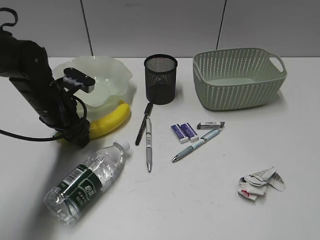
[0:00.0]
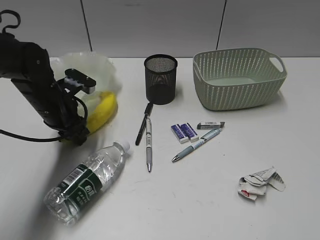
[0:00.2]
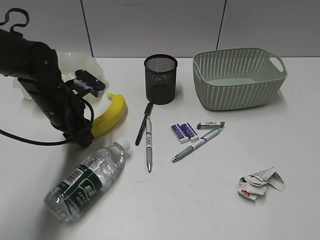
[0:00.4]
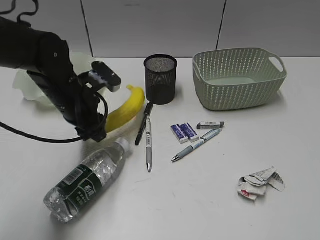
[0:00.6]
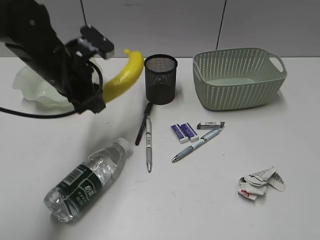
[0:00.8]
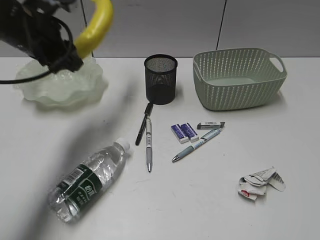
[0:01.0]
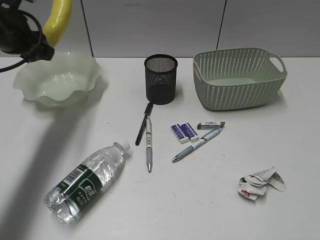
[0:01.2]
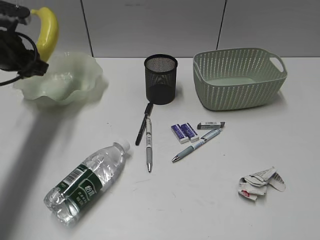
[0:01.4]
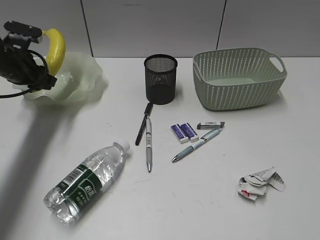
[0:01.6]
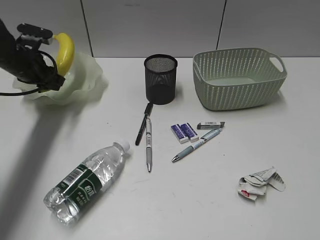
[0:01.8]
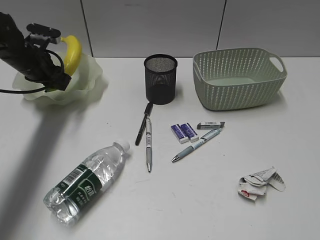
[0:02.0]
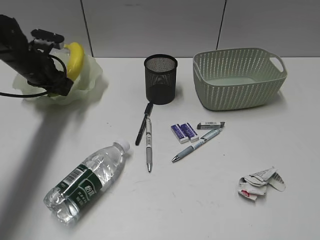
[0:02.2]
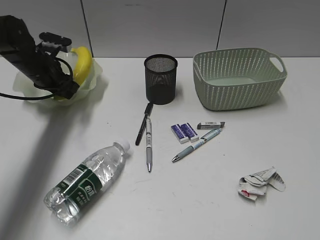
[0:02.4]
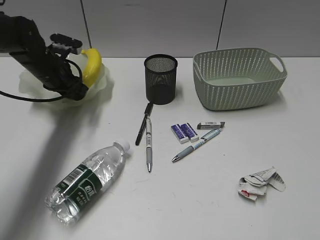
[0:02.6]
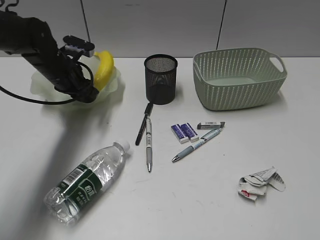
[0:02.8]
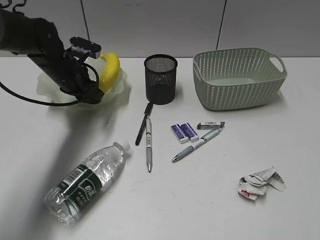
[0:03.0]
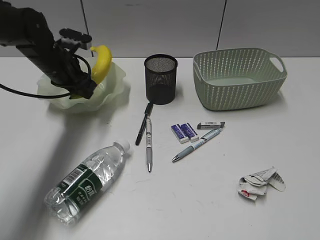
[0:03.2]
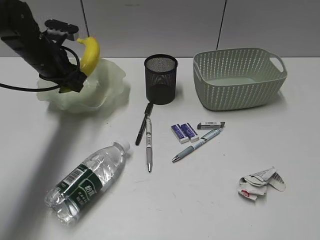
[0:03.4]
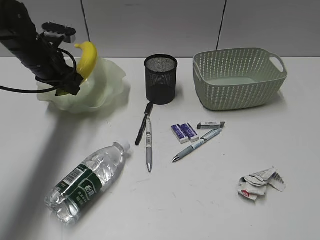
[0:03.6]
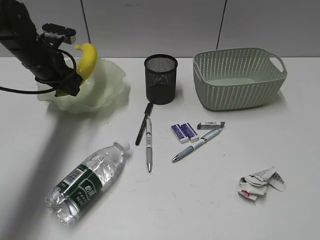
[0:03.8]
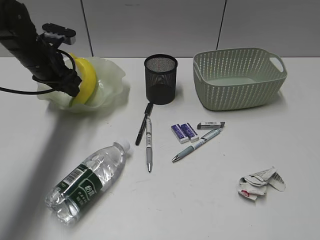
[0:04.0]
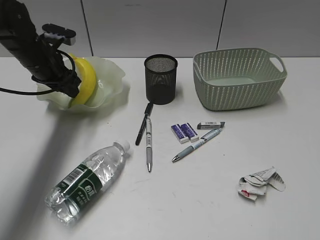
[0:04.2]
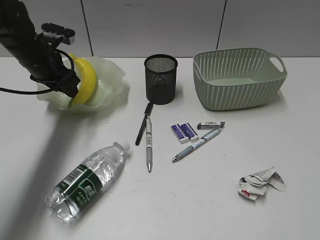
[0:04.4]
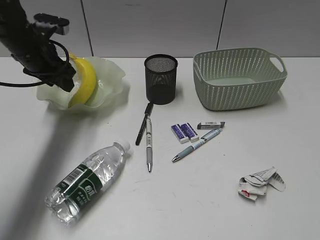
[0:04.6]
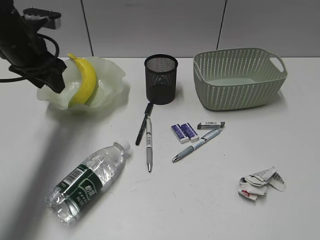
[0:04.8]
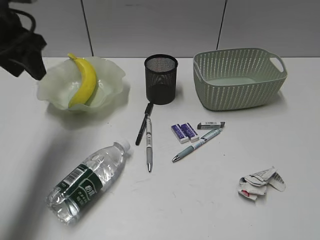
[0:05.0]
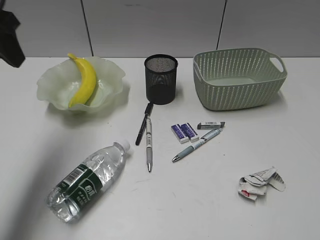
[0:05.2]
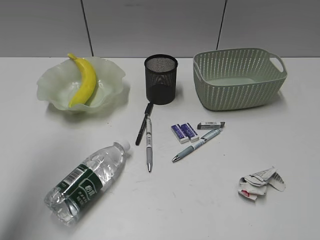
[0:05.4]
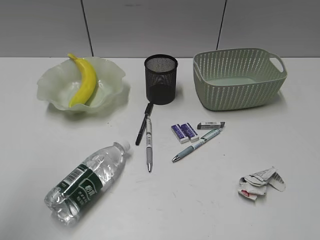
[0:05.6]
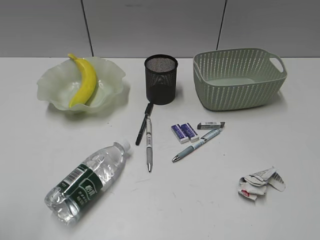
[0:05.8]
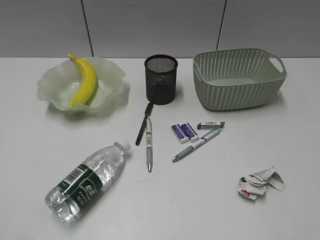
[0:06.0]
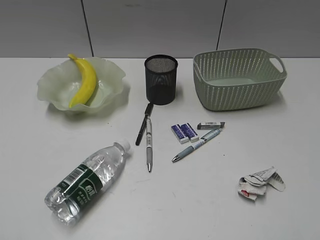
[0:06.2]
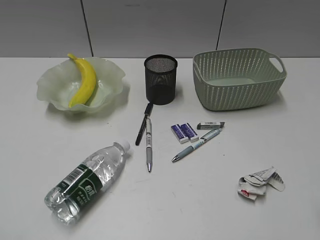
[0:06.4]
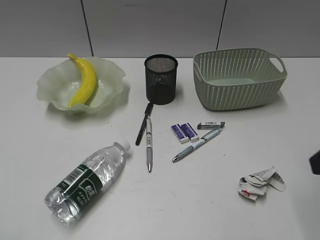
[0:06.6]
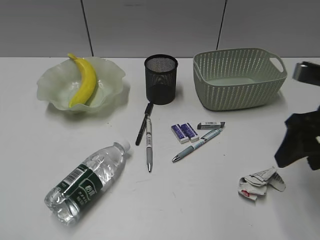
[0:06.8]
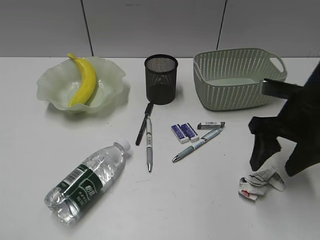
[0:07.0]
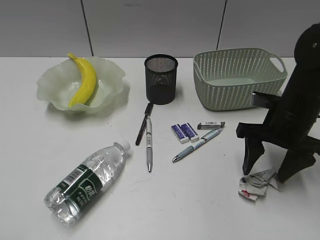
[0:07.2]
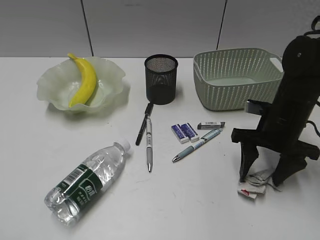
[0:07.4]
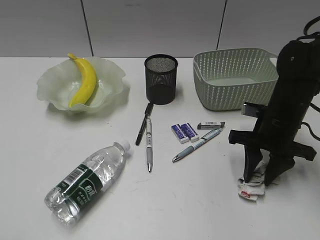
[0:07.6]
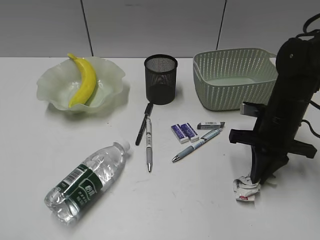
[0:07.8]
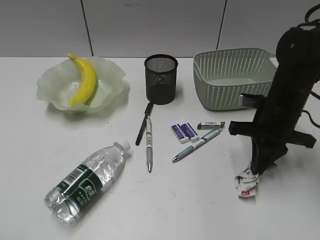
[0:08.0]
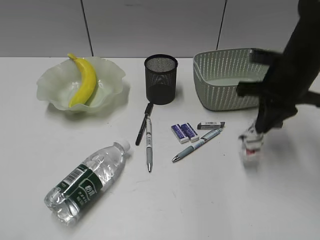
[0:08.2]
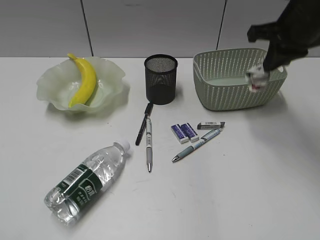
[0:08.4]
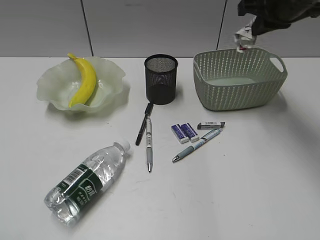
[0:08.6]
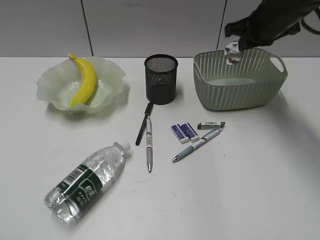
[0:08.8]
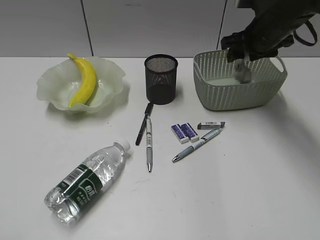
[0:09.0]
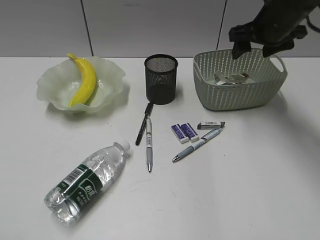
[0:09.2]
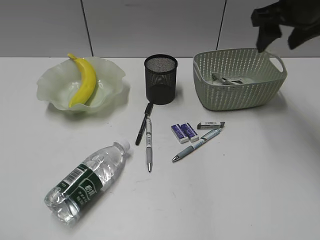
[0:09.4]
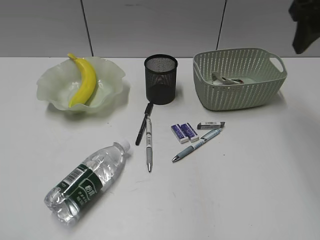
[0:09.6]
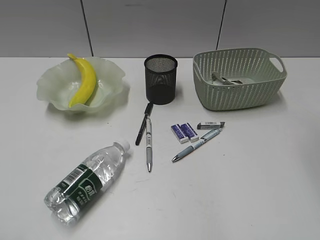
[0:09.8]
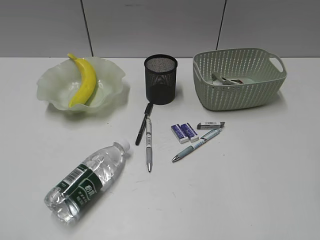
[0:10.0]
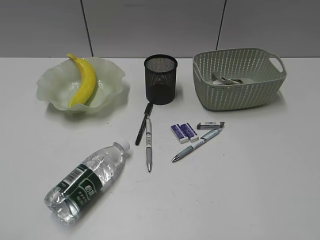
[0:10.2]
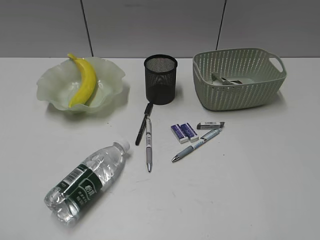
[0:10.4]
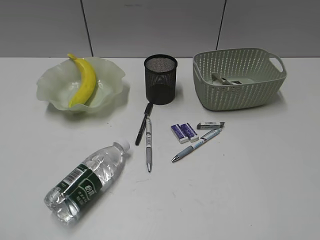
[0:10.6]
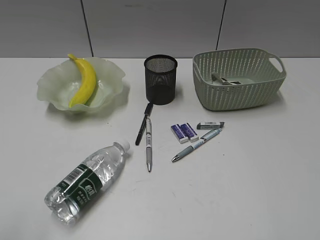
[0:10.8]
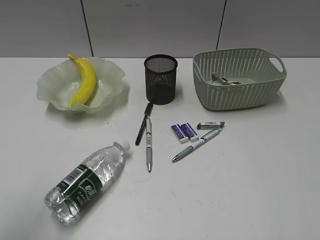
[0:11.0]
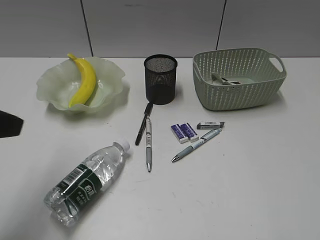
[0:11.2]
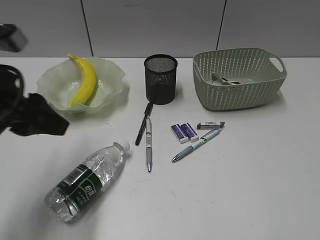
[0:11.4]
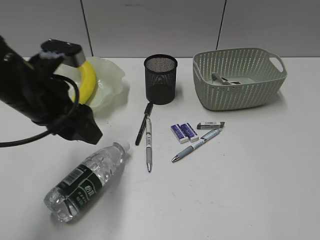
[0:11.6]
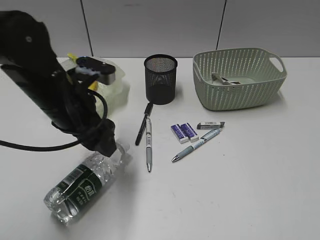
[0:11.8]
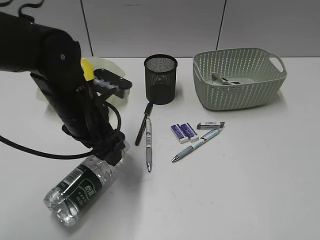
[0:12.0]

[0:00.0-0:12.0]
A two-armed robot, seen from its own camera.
Step, 0.4 to 4.0 s: Place the banana in the plate with left gripper.
Step, 4.2 to 7.8 s: Grasp the waste paper with right gripper.
Step, 8.0 to 9.0 s: Place the waste paper in the basket with right gripper.
0.0 to 1.6 s: The left gripper heads to the left and forward, covering some 10 cm, reaches roughly 15 cm upward, then returns, and closes.
1.6 to 3.0 s: The left gripper heads to the right, covering approximately 10 cm.
3.0 to 4.4 s: The left gripper moves roughly 5 cm.
4.4 to 6.0 s: The left gripper travels backward by about 40 cm.
6.0 to 7.6 s: The right gripper moves forward and downward, some 35 cm.
7.6 to 9.0 s: The right gripper shifts about 15 cm forward and upward, and closes, then opens again.
9.0 to 10.4 s: The right gripper goes approximately 40 cm backward.
10.4 to 12.0 s: The left gripper heads forward and to the right, covering some 35 cm, and opens.

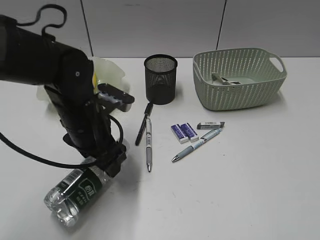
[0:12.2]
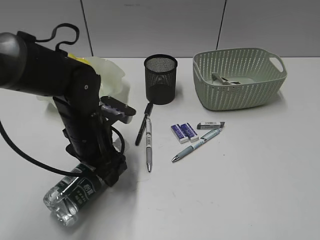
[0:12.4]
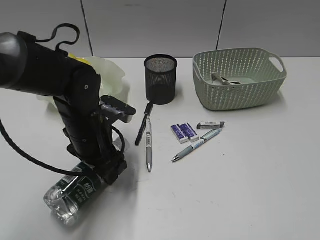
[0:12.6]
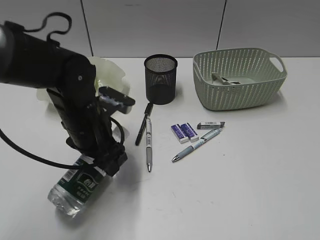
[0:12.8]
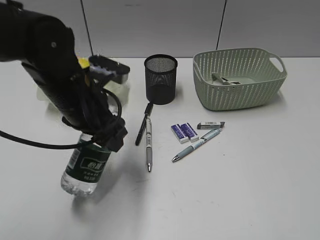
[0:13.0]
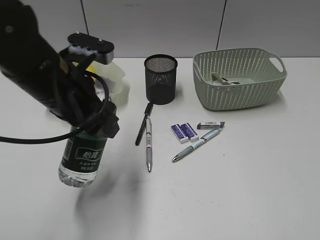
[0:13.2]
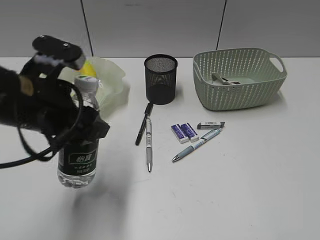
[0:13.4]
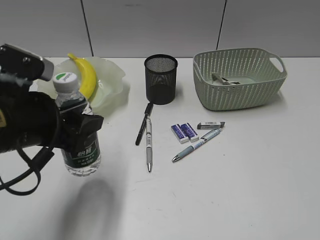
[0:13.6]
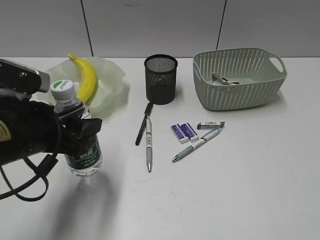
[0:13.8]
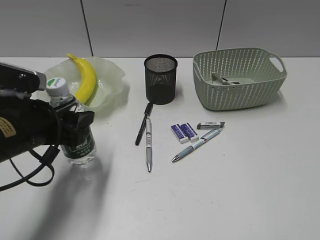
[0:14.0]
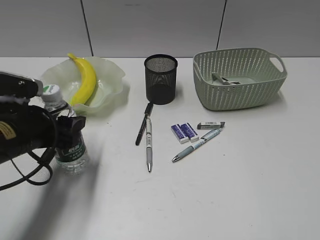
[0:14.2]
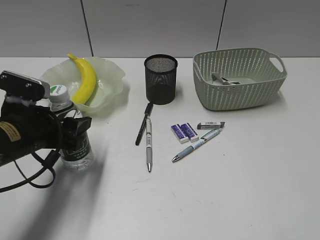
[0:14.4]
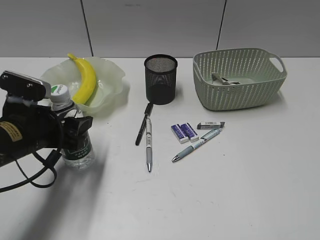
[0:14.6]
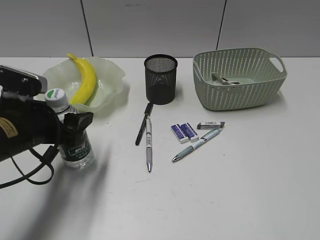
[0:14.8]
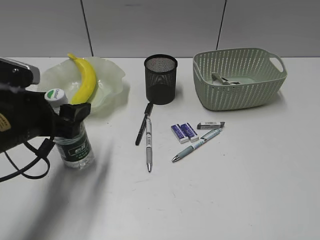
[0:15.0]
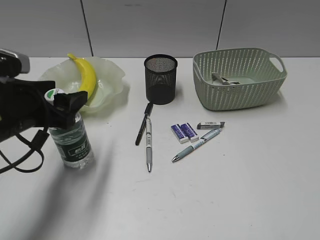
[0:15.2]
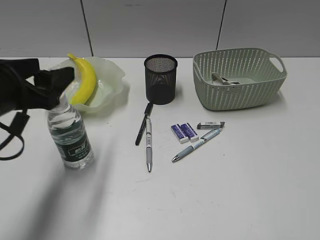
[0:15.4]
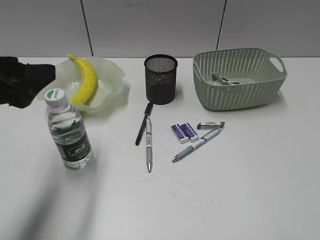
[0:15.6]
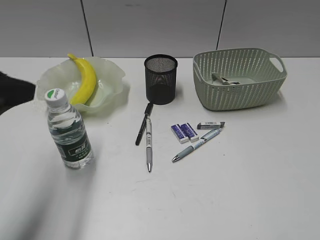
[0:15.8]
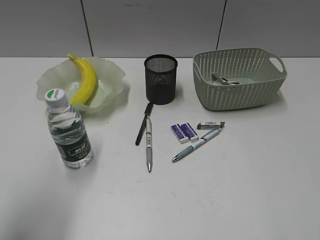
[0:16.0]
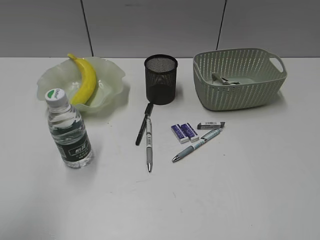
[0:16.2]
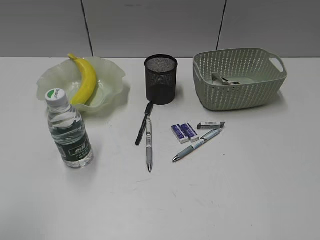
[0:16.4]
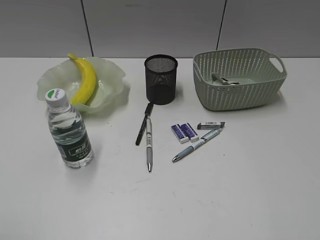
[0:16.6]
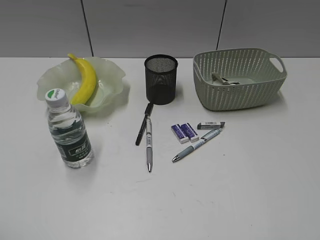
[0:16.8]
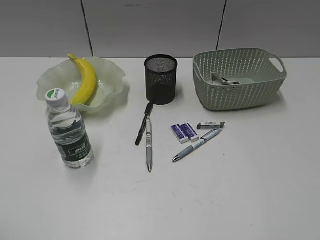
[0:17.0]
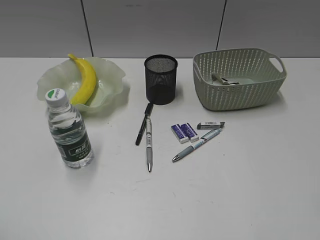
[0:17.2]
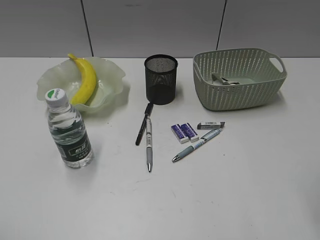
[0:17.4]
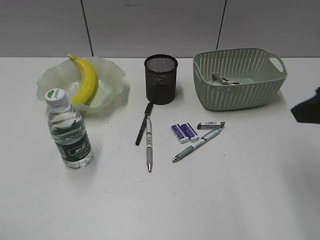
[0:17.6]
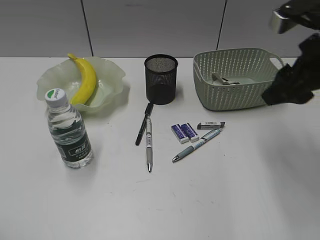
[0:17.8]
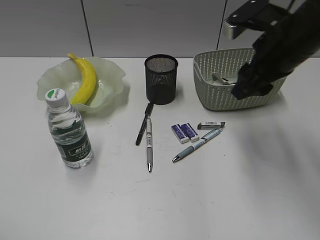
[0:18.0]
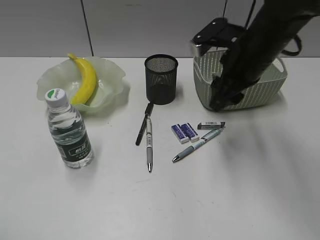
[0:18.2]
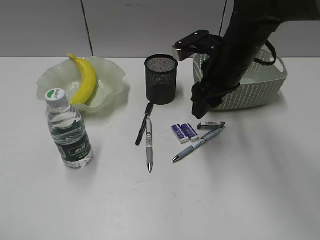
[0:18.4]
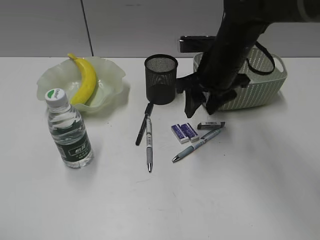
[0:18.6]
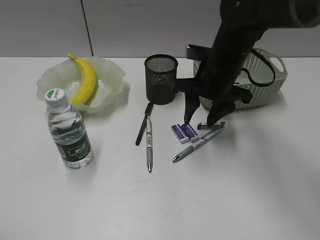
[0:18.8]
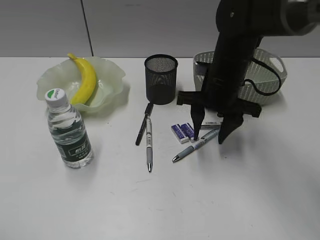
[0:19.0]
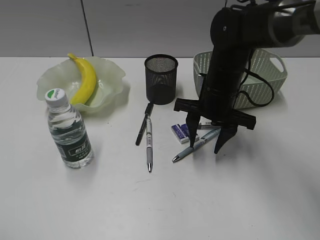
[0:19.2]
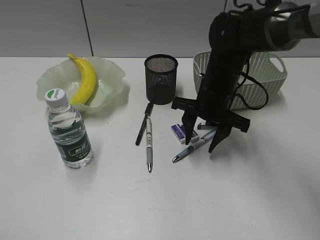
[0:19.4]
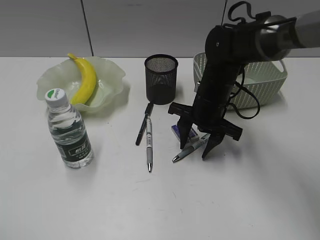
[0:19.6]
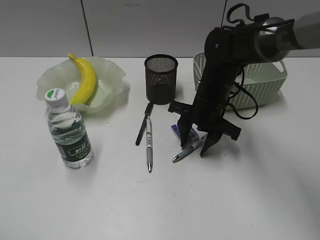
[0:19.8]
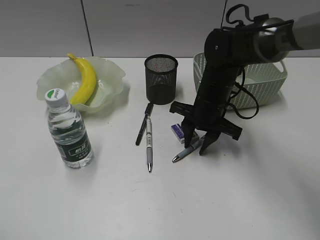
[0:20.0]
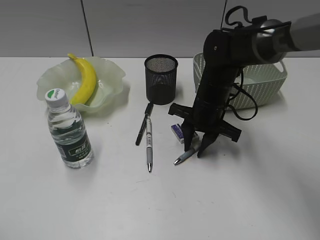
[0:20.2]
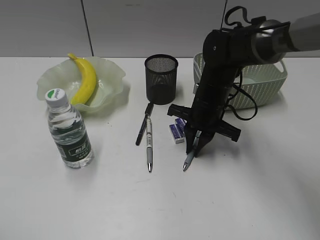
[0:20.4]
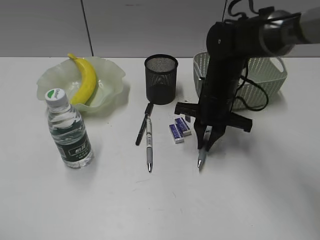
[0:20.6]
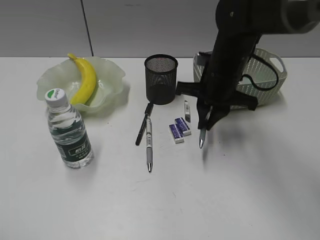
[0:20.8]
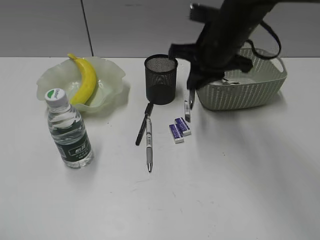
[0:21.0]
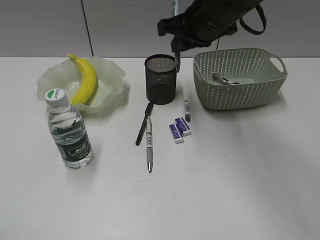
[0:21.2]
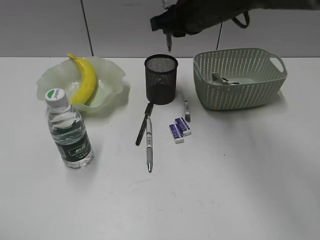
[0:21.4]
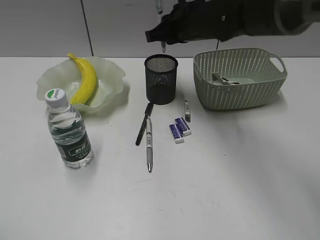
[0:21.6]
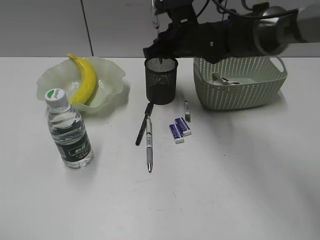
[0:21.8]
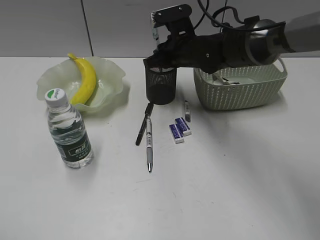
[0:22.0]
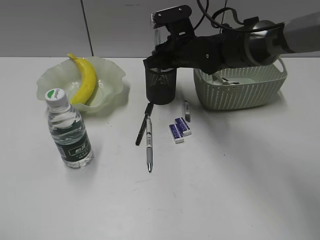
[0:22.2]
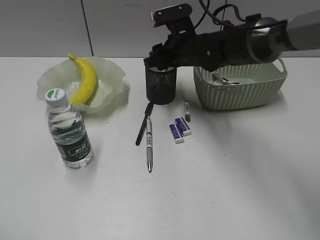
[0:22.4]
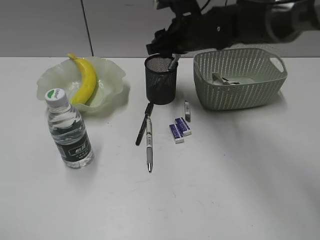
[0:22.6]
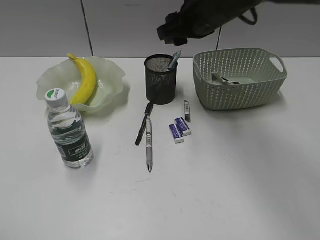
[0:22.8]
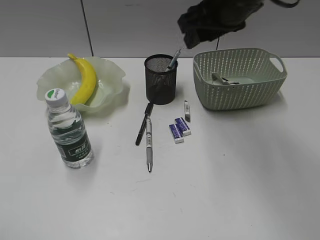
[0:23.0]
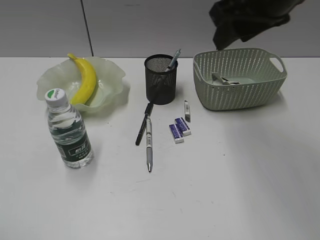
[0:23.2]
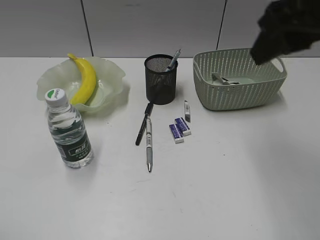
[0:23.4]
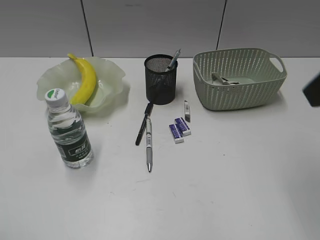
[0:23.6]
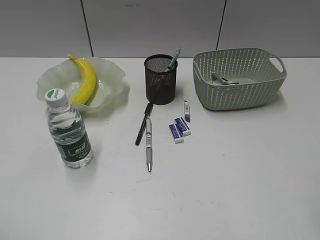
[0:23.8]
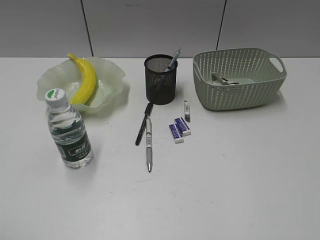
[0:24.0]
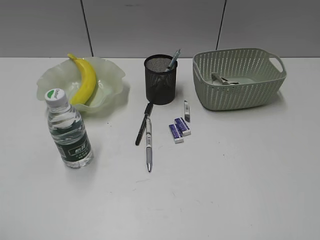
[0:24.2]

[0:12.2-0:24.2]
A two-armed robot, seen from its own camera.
Step, 12.6 to 15.2 s: Stand the bottle with left gripper.
Step, 15.4 to 20.4 s: Grasp the blue pen with right gripper.
Step, 20.6 to 22.4 s: Place the blue pen in pen holder with right gripper.
12.2 to 13.8 s: The left gripper heads backward and to the left, covering roughly 10 cm.
15.2 to 16.6 s: The left gripper travels backward, upward and to the left by approximately 25 cm.
16.6 to 18.2 s: The right gripper moves forward and to the left, some 35 cm.
18.2 to 19.8 s: The right gripper heads downward, covering about 10 cm.
19.8 to 21.2 s: The right gripper travels upward by roughly 15 cm, and closes up.
21.2 to 22.6 s: The right gripper moves downward, some 5 cm, and opens up.
22.6 to 24.2 s: The right gripper heads backward and to the right, covering about 50 cm.
